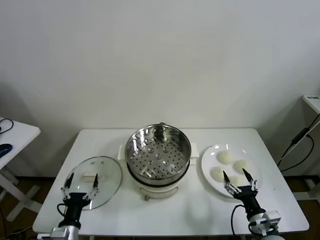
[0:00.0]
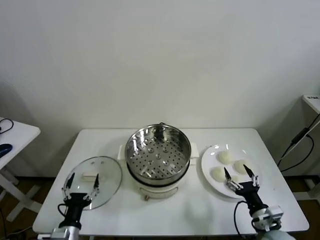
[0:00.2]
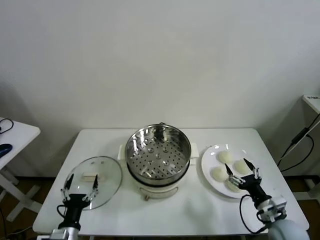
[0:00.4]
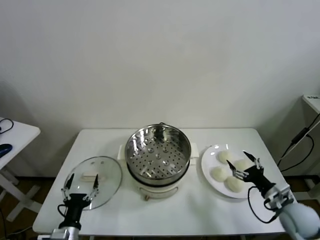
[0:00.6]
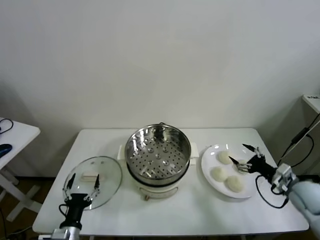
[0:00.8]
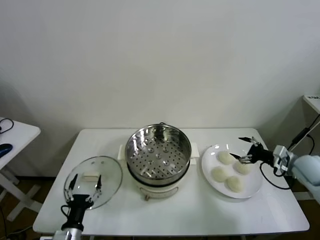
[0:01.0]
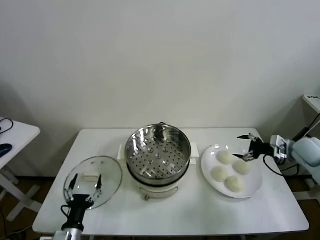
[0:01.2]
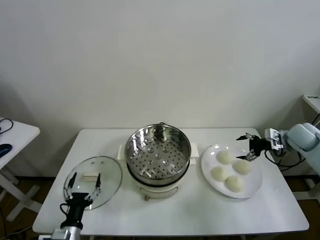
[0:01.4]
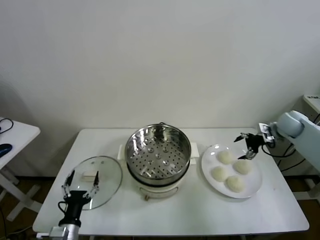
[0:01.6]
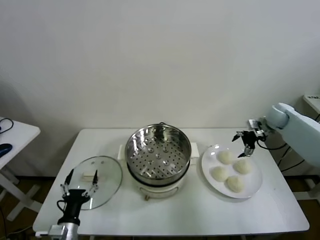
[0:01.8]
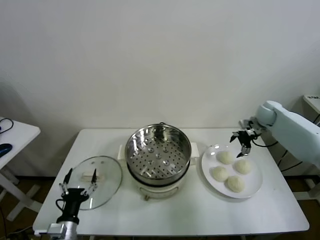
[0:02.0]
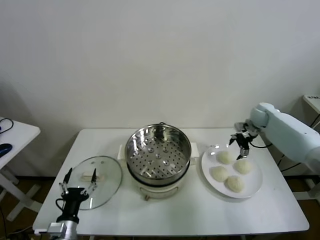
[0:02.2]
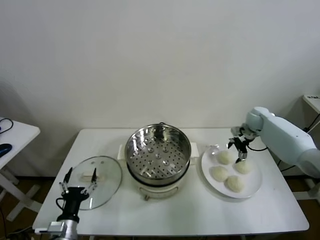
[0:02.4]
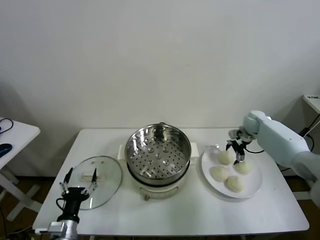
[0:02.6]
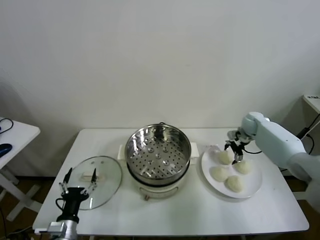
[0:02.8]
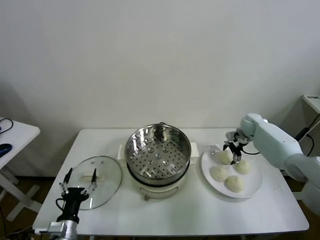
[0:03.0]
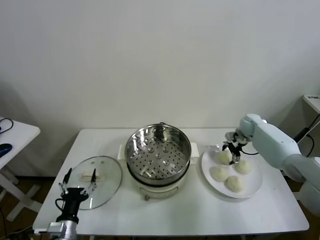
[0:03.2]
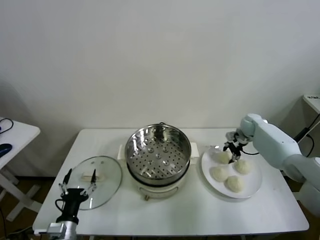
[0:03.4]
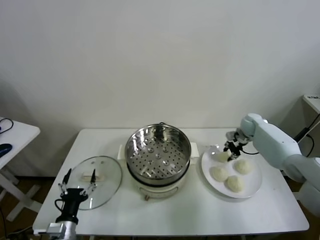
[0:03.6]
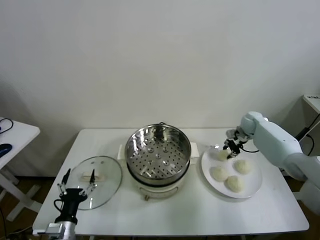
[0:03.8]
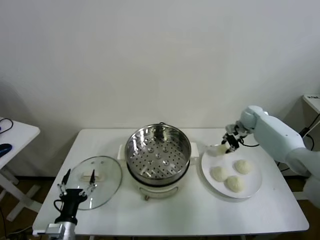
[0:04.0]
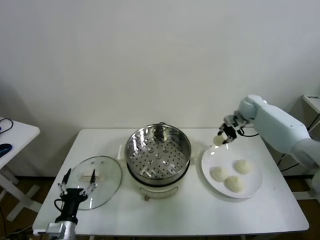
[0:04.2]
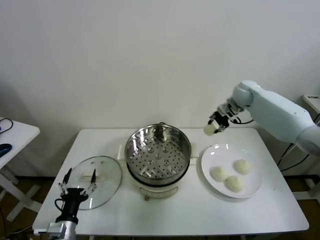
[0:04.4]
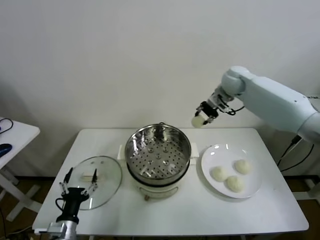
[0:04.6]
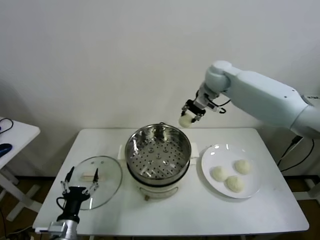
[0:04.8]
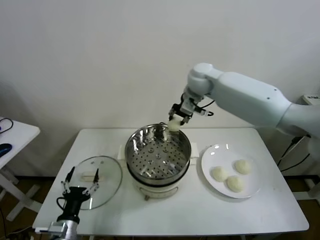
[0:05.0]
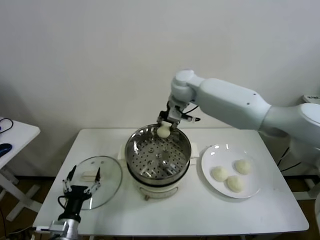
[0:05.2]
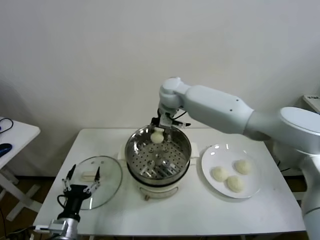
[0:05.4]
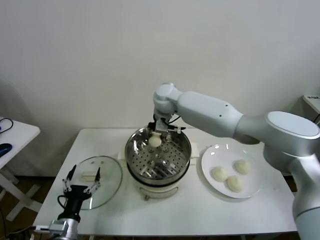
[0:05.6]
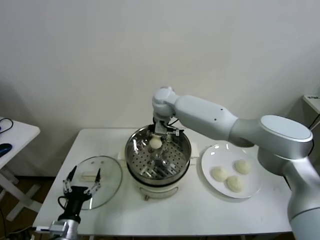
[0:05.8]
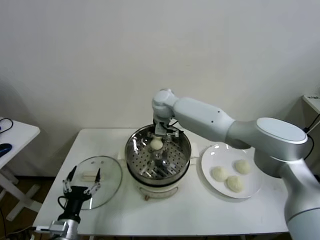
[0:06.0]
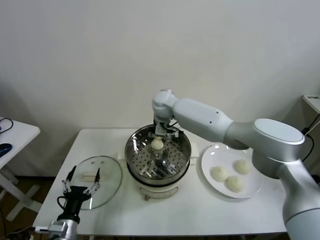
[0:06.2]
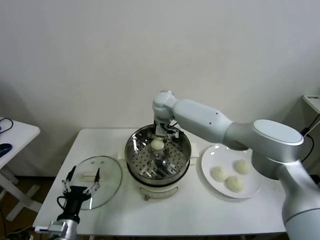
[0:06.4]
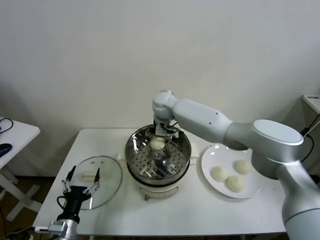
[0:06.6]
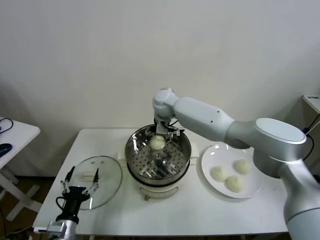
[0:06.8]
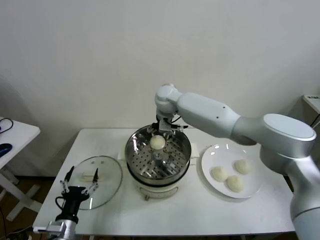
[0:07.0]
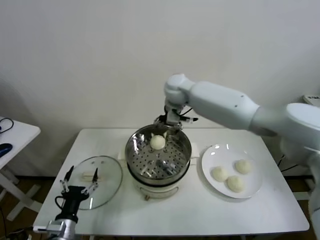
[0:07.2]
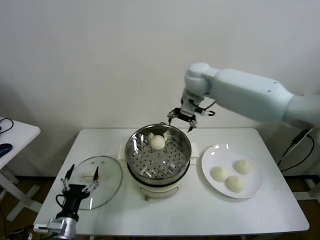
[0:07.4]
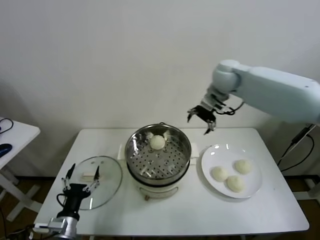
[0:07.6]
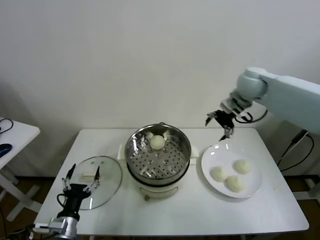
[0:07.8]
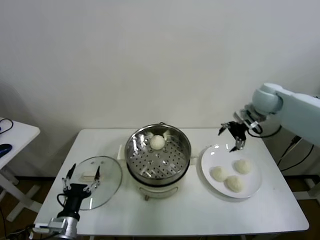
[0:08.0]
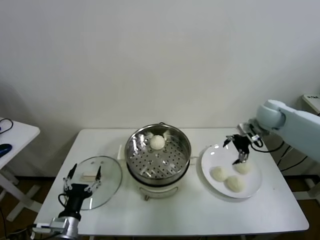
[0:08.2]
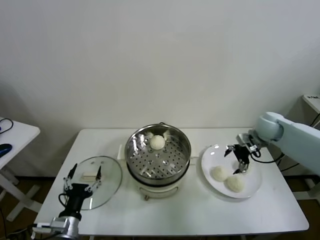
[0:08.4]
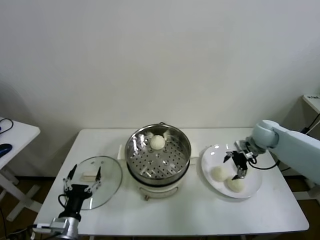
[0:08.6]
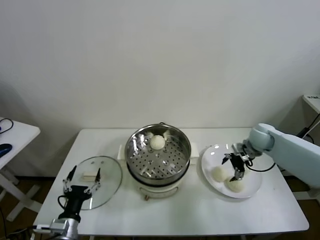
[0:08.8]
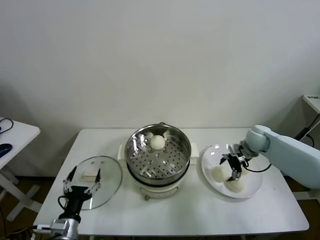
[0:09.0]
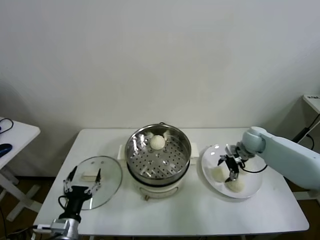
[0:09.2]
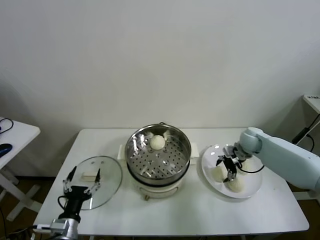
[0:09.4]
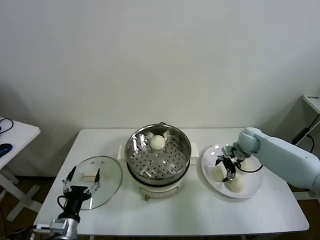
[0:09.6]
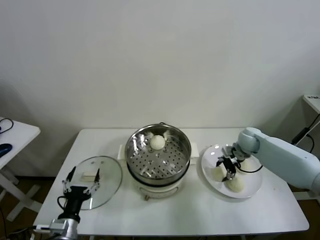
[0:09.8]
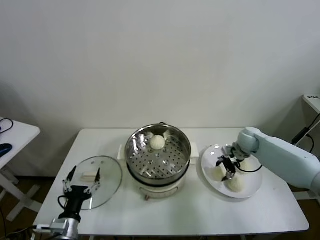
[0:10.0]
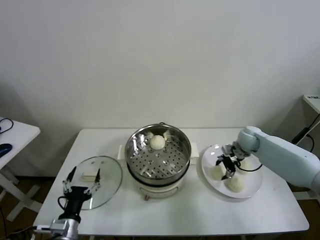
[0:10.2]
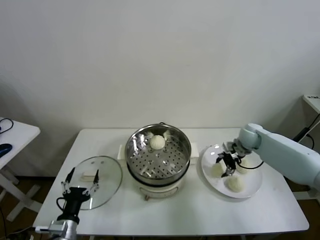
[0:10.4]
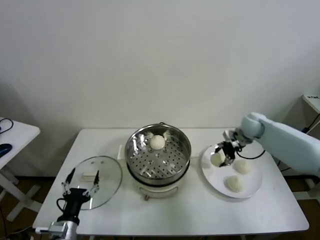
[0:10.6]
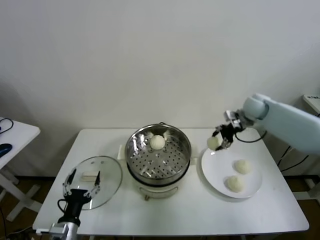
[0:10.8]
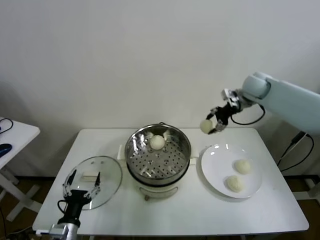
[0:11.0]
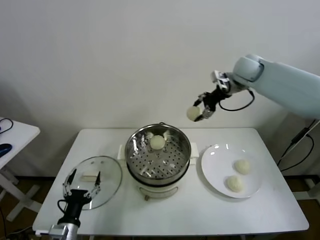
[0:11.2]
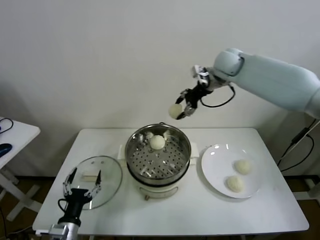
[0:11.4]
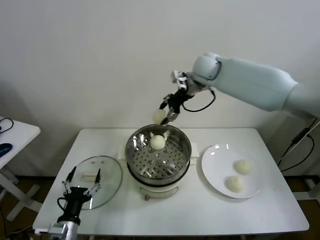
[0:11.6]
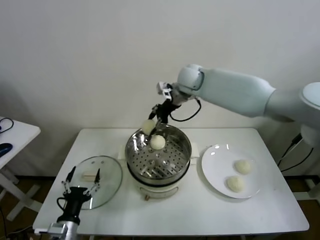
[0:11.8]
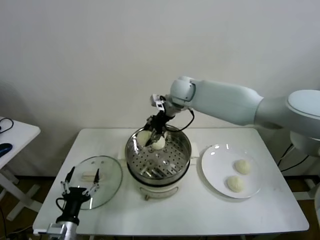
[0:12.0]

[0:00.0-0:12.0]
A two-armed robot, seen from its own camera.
Task of the whole recording: take steamed baozi put them in steamer.
Step, 0.0 to 3.2 s: Grasp the baozi in the plate with right gripper.
Step, 3.4 to 6.6 s: Place the baozi on the steamer with right gripper.
Step, 6.8 to 9.6 s: Grasp the baozi in the plate with right gripper.
1.6 to 3.0 s: The right gripper moves downward, to the left and forward, some 15 cm.
3.0 to 4.4 s: The right gripper heads upward and to the left, covering some 20 cm, and closes its fingers.
4.4 to 6.0 s: The right gripper travels to the left by roughly 30 cm.
6.0 to 7.6 s: The right gripper is displaced to the right and upward by about 25 cm, and opens.
7.6 to 9.0 s: The right gripper moves downward and to the right, roughly 25 cm.
9.0 to 10.4 s: The right gripper closes up.
10.4 to 12.0 s: The right gripper moves to the left and upward, approximately 35 cm.

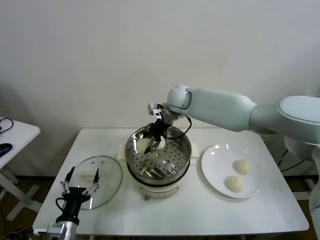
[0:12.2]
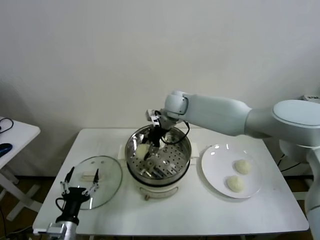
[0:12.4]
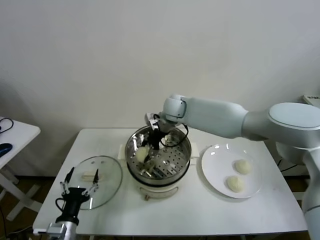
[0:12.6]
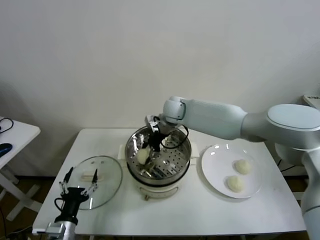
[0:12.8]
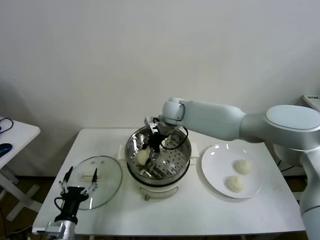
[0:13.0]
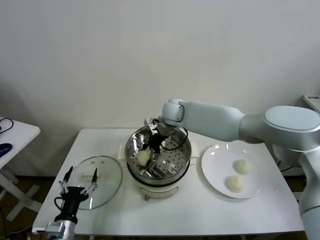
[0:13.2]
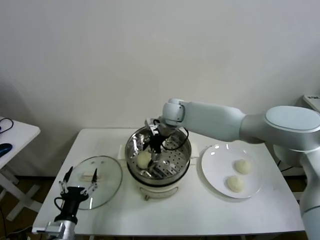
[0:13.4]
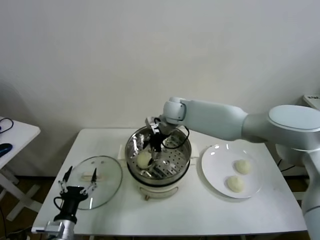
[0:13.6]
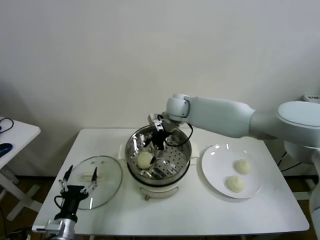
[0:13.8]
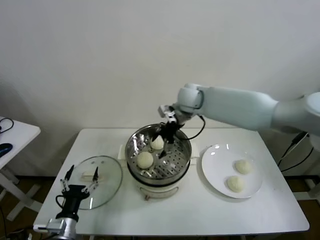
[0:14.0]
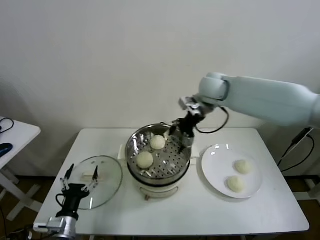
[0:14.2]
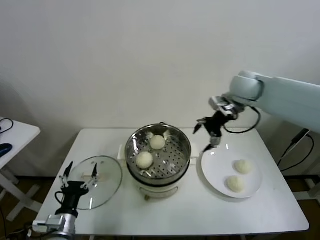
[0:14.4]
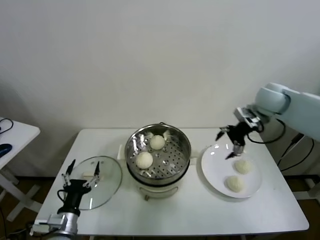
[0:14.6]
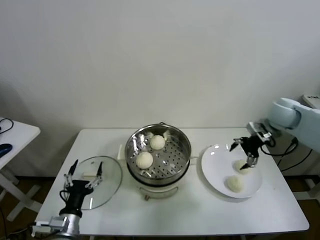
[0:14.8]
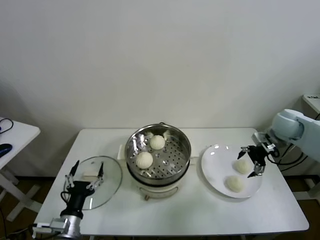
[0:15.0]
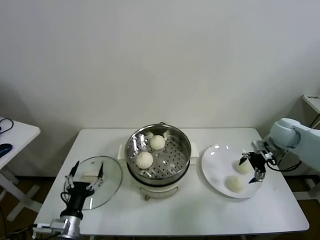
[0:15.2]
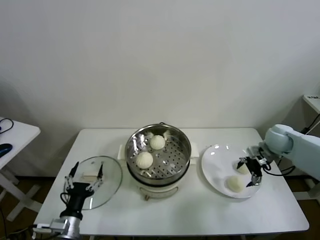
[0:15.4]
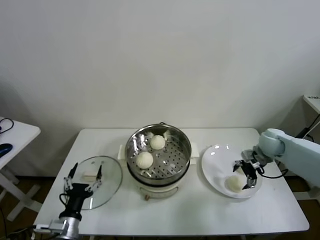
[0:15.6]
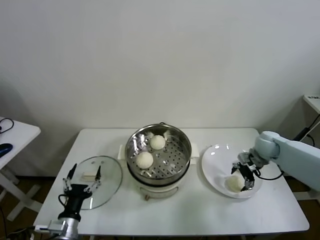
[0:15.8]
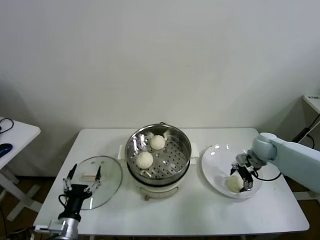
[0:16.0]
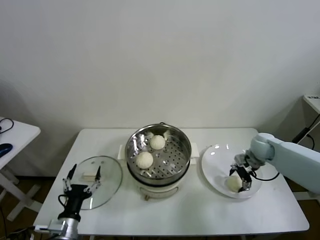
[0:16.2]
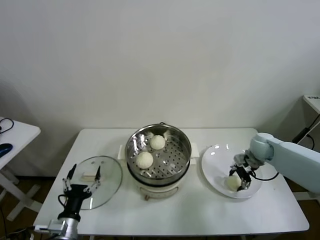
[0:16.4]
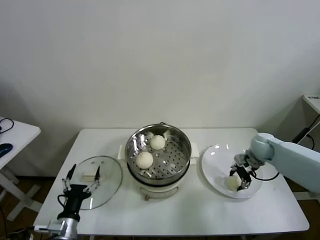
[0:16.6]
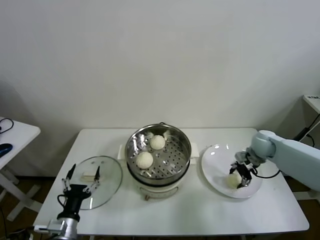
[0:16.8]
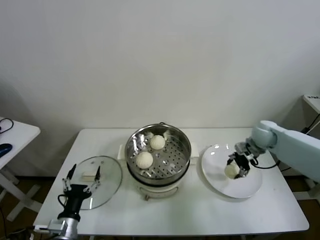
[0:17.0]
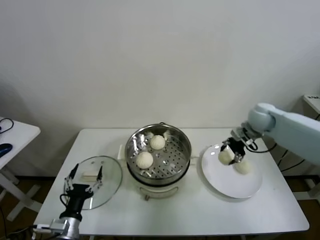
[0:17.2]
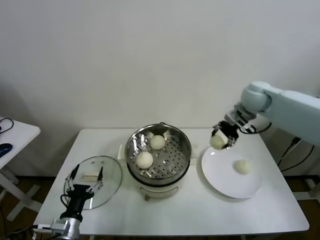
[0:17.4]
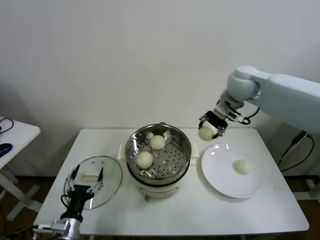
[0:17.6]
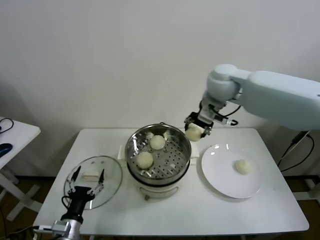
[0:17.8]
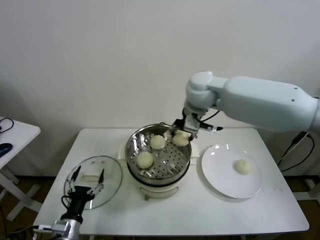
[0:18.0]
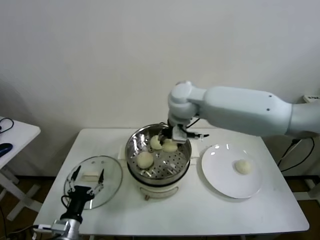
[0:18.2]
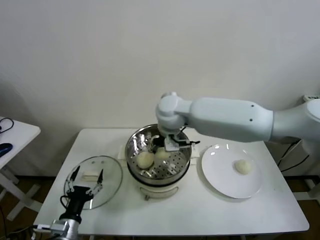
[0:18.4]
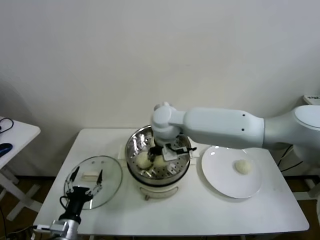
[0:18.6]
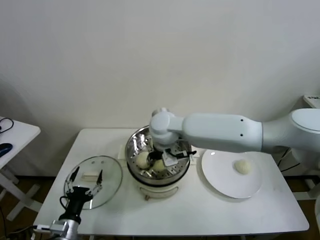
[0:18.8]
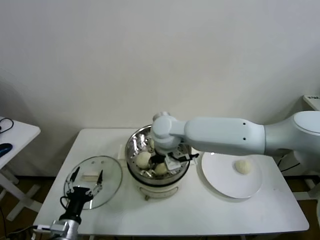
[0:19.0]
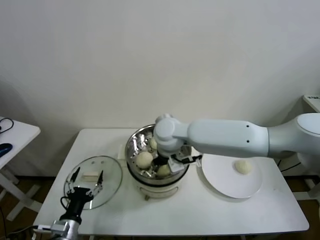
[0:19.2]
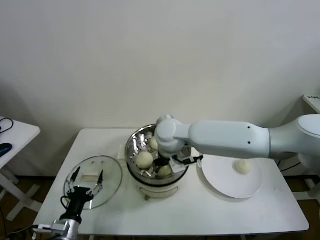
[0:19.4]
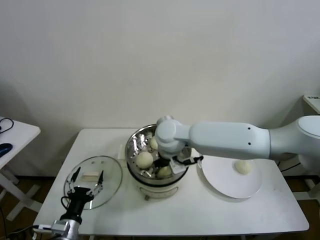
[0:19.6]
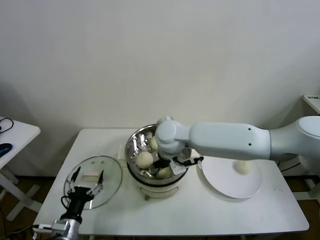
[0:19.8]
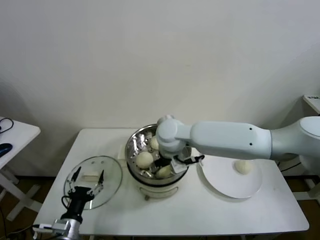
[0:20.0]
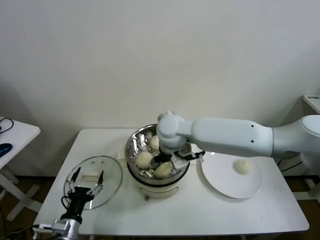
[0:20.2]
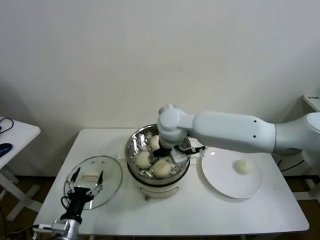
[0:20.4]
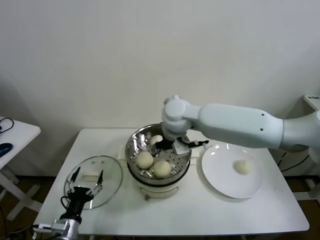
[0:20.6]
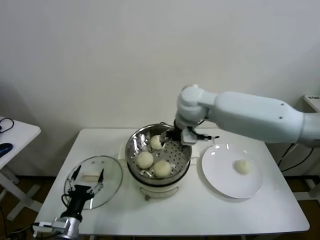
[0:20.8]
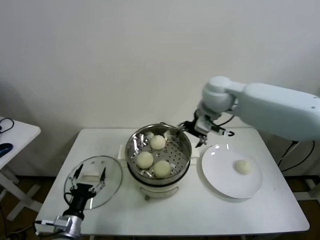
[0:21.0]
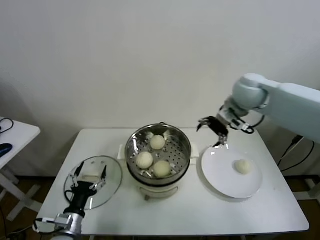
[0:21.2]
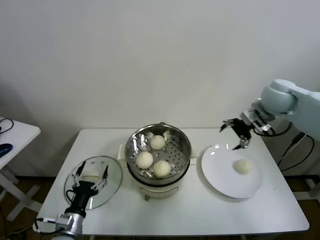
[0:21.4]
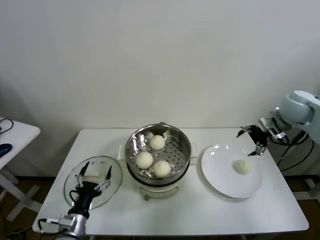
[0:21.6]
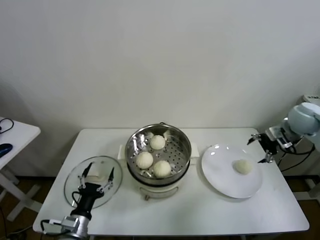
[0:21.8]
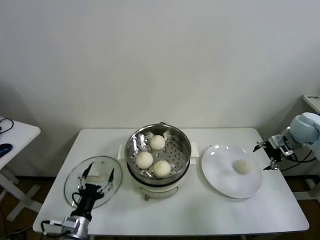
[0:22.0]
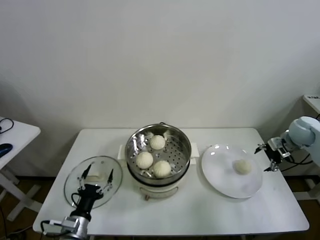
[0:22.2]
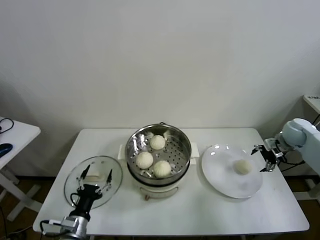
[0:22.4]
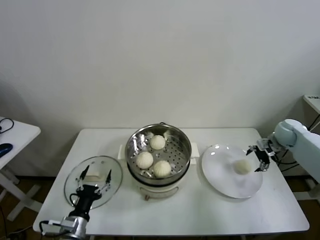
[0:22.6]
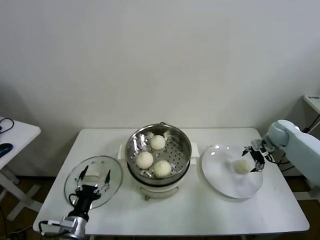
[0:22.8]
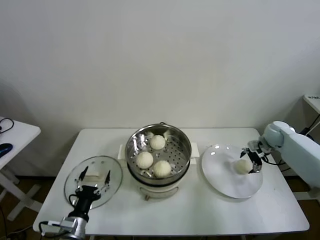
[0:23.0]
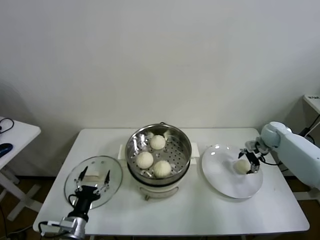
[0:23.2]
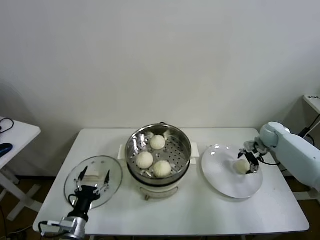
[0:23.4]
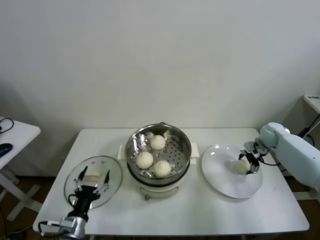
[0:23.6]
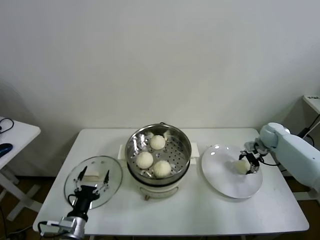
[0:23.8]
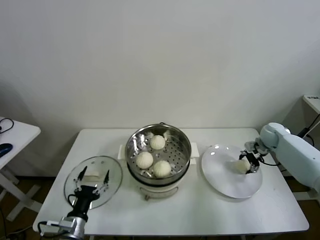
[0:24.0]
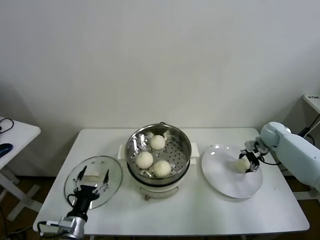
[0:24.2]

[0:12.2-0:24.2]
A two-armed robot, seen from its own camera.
Task of the whole recording: take steamed baozi put them in steamer.
Step, 13.6 to 16.2 s: Grasp the baozi in the plate with right gripper.
Step, 16.6 to 19.8 s: Place the baozi on the steamer with right gripper.
Step, 20.0 to 23.8 s: Grasp the baozi in the plate with right gripper.
12.2 to 13.8 s: The right gripper opens up.
13.8 to 15.2 s: The right gripper goes approximately 35 cm to the right.
15.2 to 16.6 s: The right gripper travels downward by about 10 cm, and closes up.
16.6 to 18.2 s: The right gripper heads to the left and upward, covering about 40 cm.
18.2 to 19.8 s: The right gripper goes roughly 10 cm downward and backward, and opens.
19.8 to 21.2 s: The right gripper shifts some 25 cm to the right and upward.
21.2 to 22.6 s: The right gripper goes about 30 cm to the right and downward.
22.6 to 24.2 s: The right gripper ends up some 5 cm from where it was, and closes its fingers.
